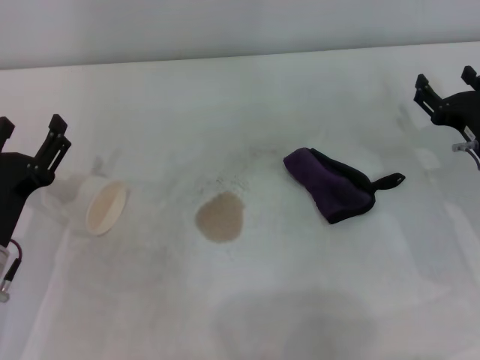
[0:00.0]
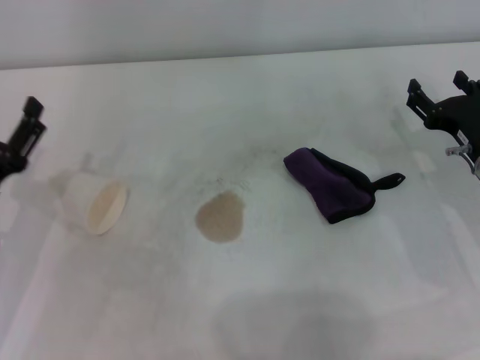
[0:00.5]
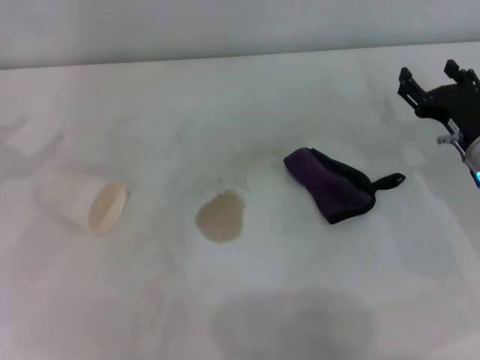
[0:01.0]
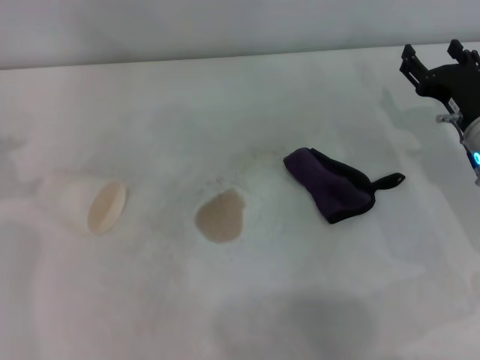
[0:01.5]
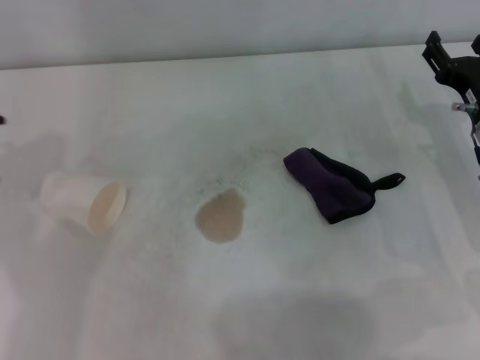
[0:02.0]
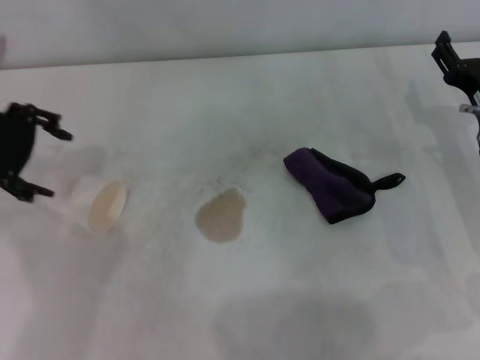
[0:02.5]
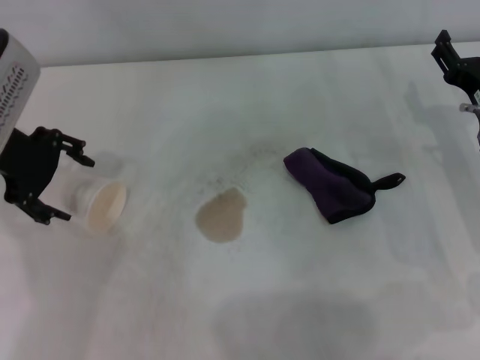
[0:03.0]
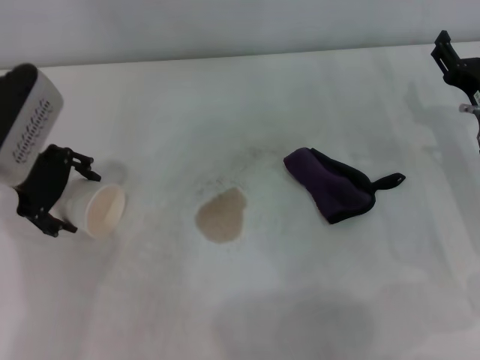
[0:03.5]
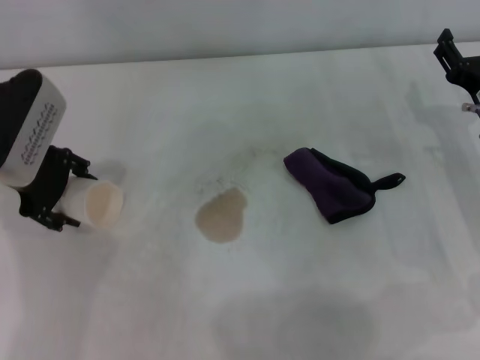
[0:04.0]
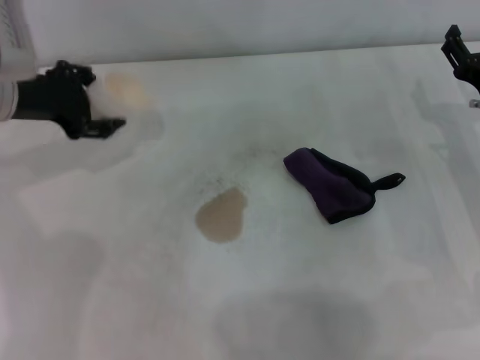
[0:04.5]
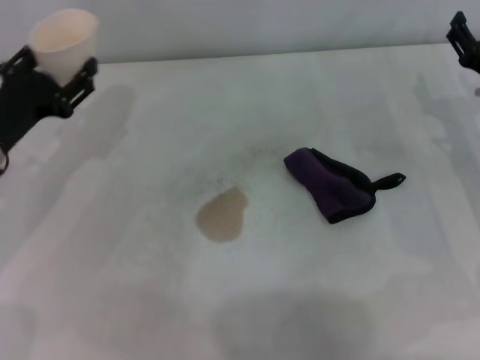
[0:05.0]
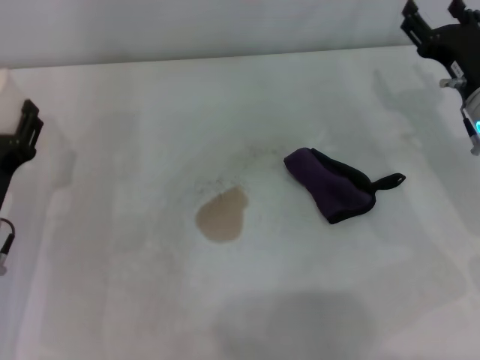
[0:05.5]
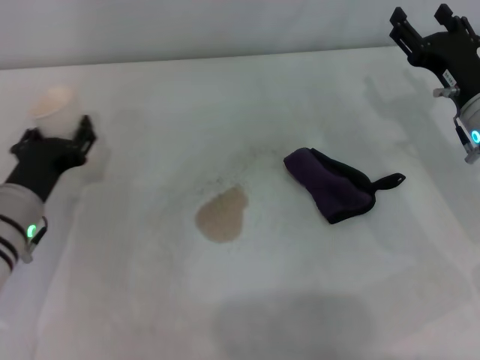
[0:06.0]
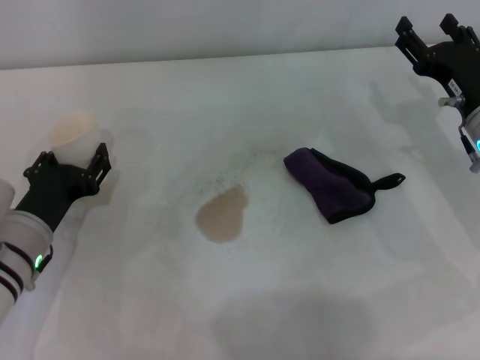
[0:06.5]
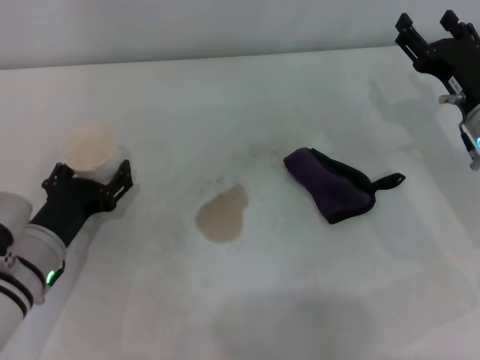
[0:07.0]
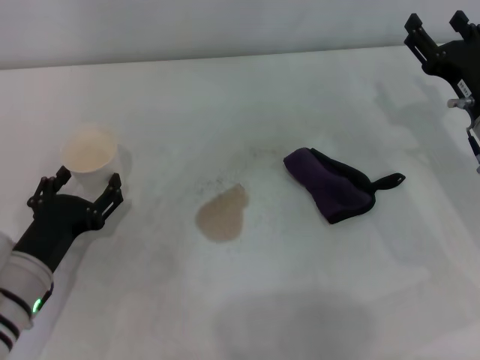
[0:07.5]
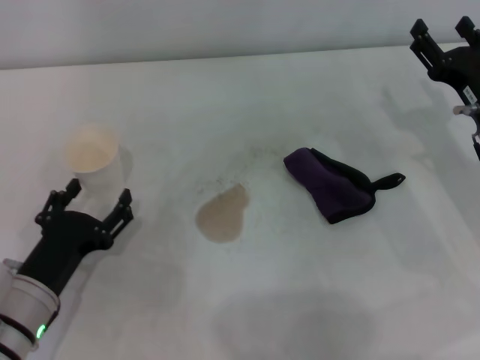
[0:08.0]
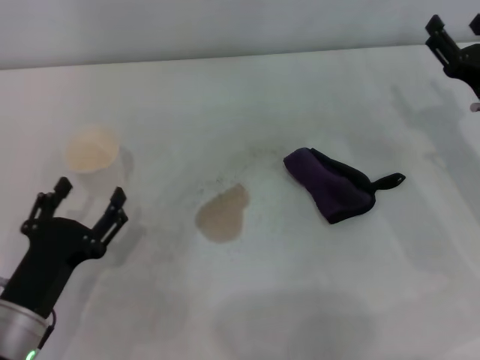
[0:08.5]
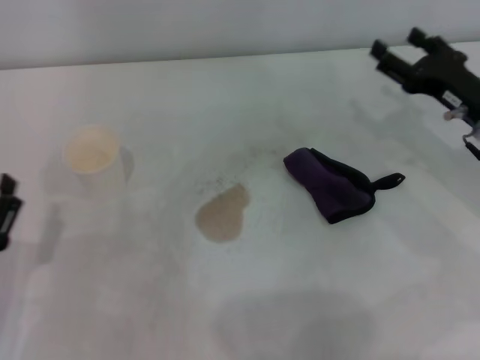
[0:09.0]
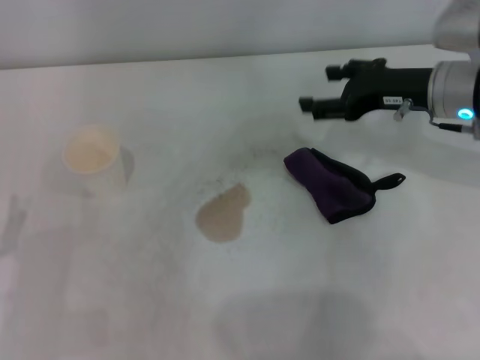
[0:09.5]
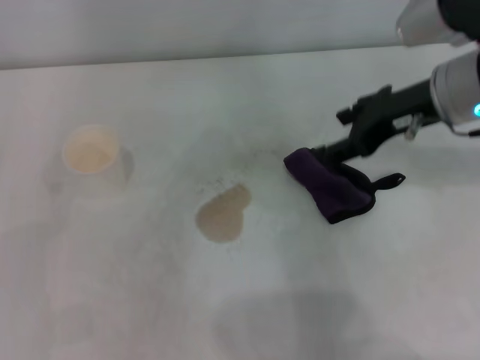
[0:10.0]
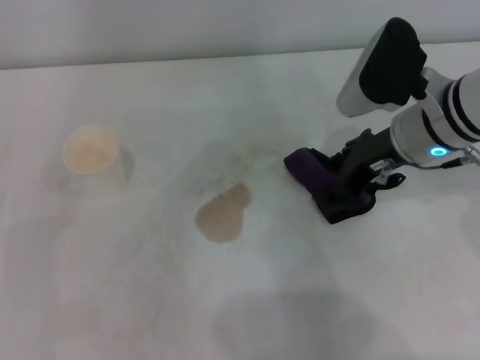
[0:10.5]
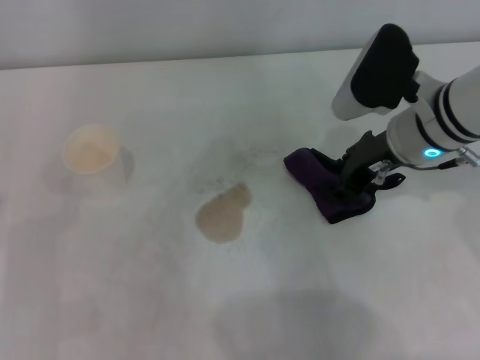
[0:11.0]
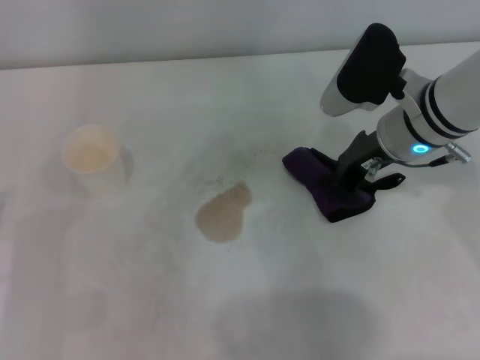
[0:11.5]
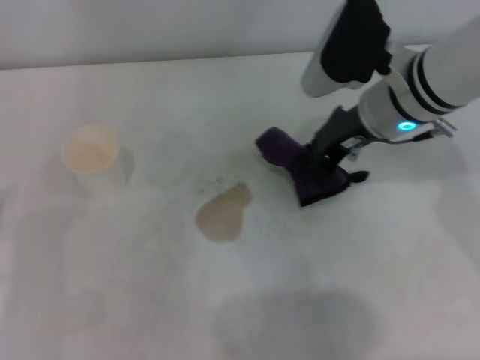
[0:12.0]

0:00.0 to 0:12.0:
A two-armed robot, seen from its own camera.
Step, 0:00.0 to 0:03.5: Grasp the paper cup with the left gripper.
Step, 0:04.0 to 0:07.0: Stand the paper cup upright with the left gripper.
Step, 0:07.5 to 0:11.0: Grasp the rag with the right gripper.
0:00.0 to 0:02.0: The left gripper goes approximately 25 cm upward and forward.
0:02.0 to 0:04.0: The left gripper shifts about 10 cm downward and to the right.
0:04.0 to 0:06.0: The left gripper heads downward and backward, covering roughly 15 cm, and closes up.
0:06.0 to 0:08.0: The left gripper moves backward, about 10 cm, and opens.
0:08.0 to 0:10.0: The right gripper goes roughly 15 cm upward and to the left, while the left gripper travels to the left by roughly 10 cm.
0:10.0 to 0:12.0: The right gripper is displaced to the left by roughly 5 cm, and closes up.

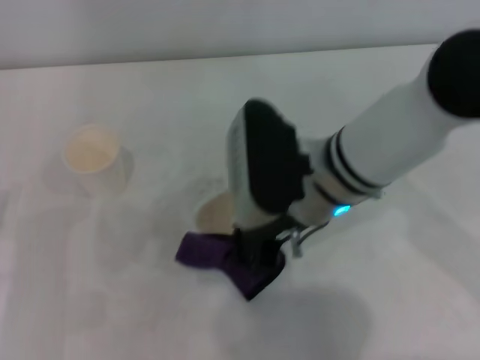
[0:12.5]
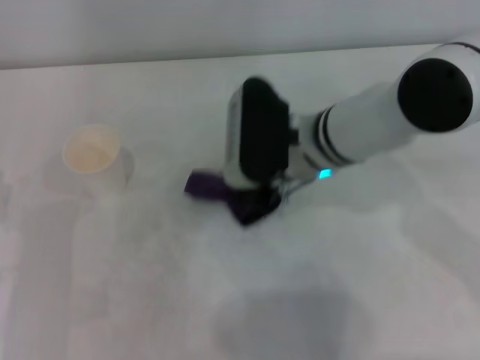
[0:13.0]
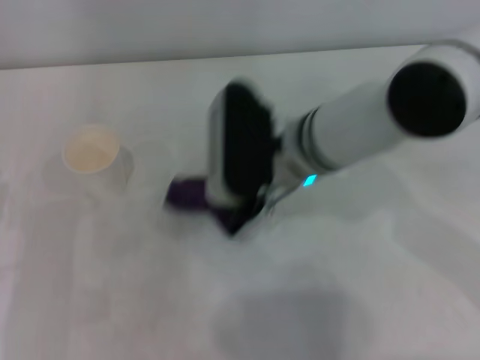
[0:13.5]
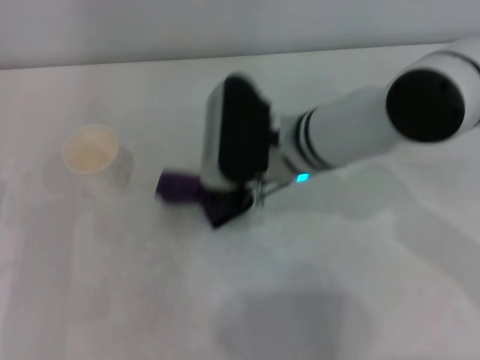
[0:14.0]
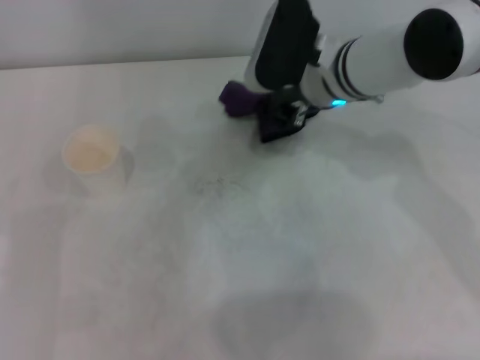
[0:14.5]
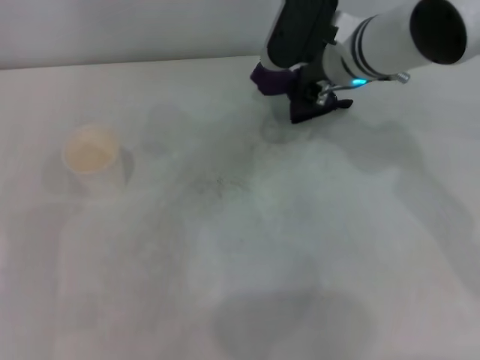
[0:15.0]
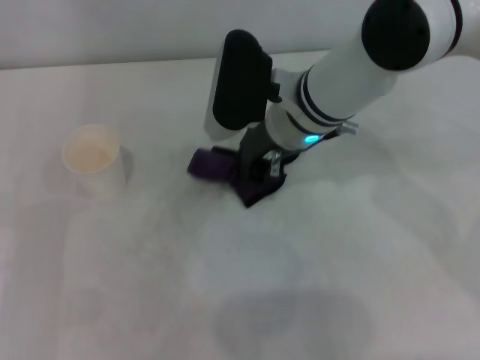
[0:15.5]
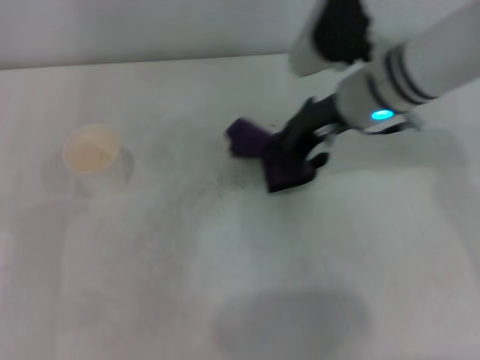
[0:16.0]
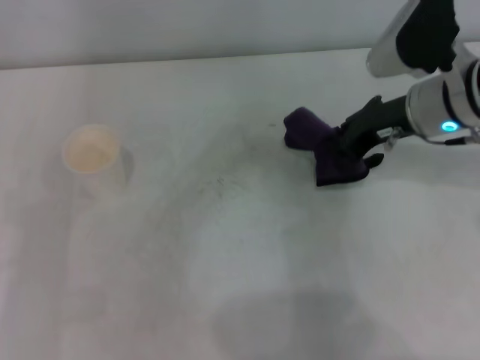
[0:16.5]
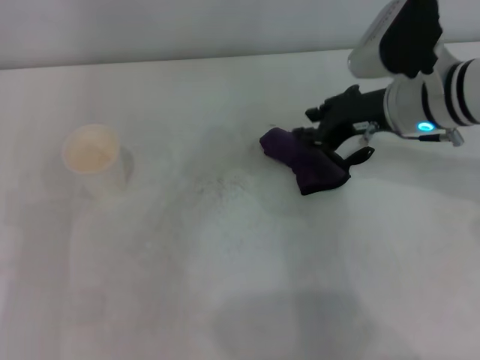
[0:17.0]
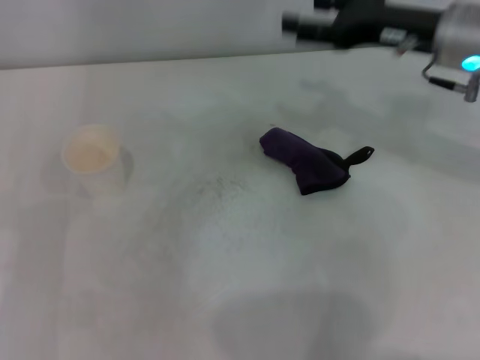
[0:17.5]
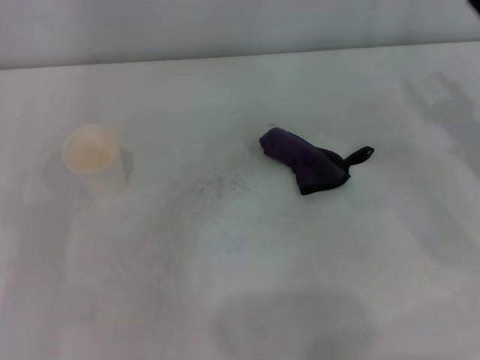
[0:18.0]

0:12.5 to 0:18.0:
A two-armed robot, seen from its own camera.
Step, 0:12.5 to 0:14.0: Wipe the stains off the table with the right gripper.
Step, 0:14.5 to 0:16.5: Place the rag on the table with the right gripper.
0:12.5 to 0:14.5: The right gripper is displaced forward by about 10 cm.
0:14.5 to 0:16.0: The right gripper ends up roughly 5 cm from where it was.
0:16.0 to 0:18.0: The right gripper is displaced to the right and backward by about 20 cm, and opens.

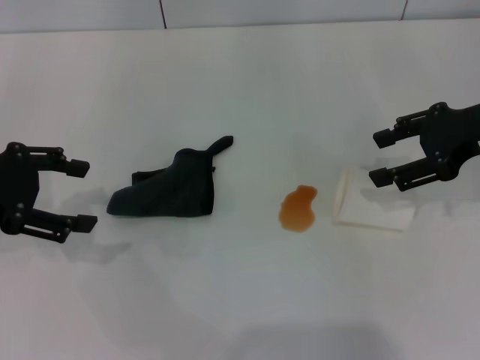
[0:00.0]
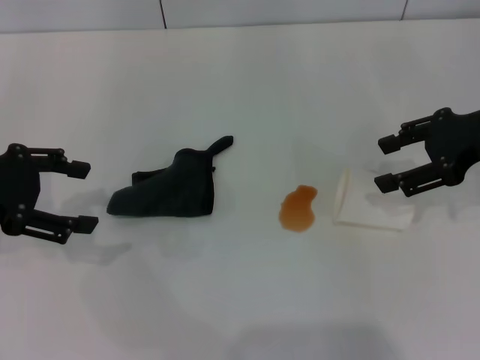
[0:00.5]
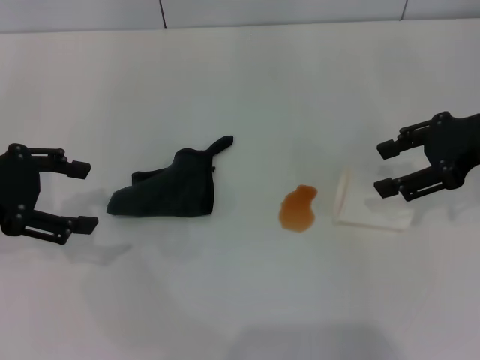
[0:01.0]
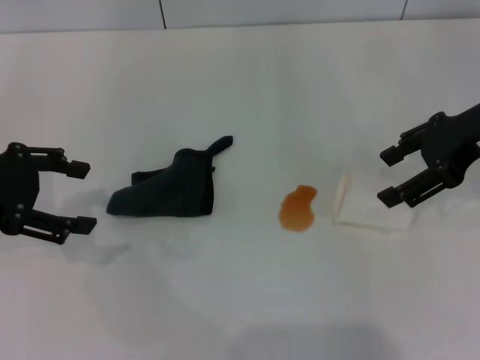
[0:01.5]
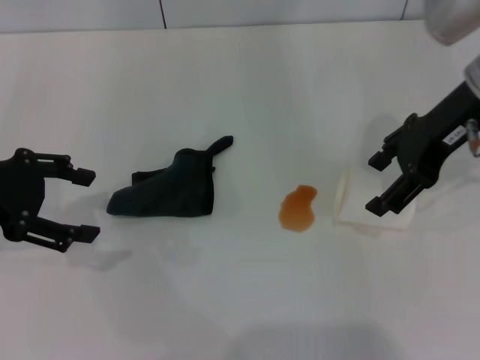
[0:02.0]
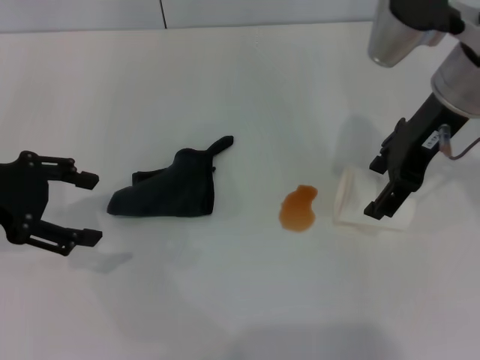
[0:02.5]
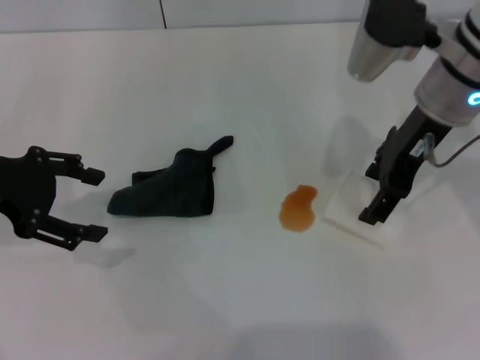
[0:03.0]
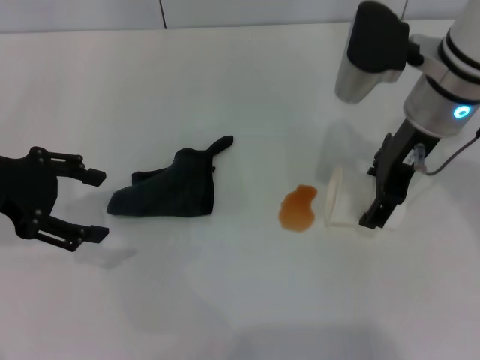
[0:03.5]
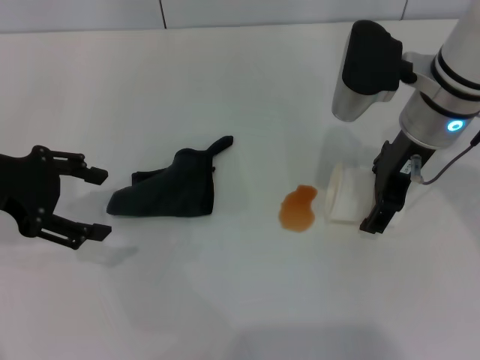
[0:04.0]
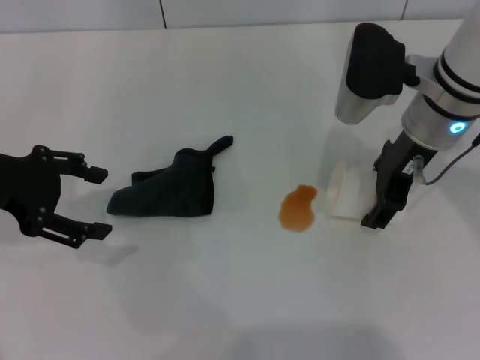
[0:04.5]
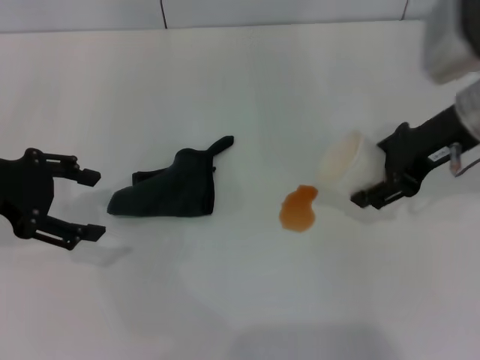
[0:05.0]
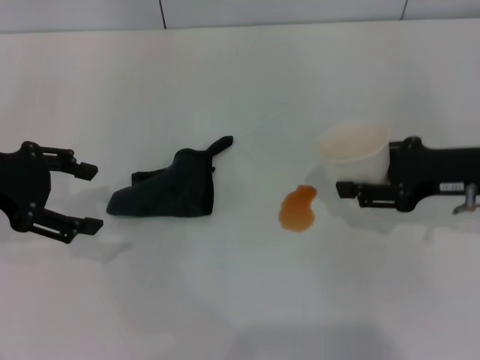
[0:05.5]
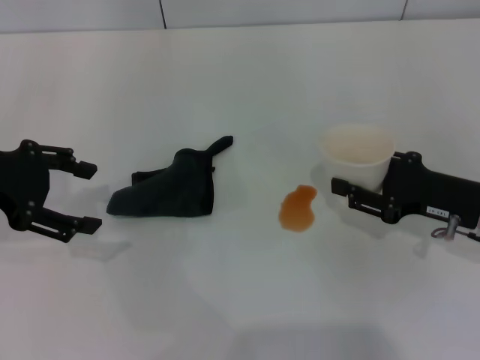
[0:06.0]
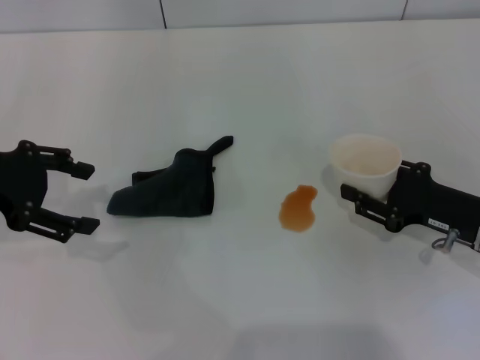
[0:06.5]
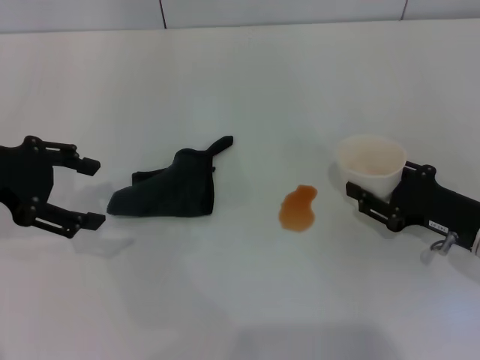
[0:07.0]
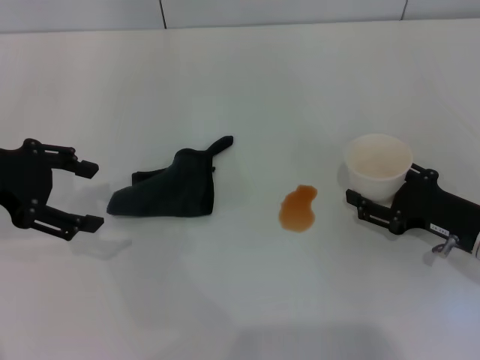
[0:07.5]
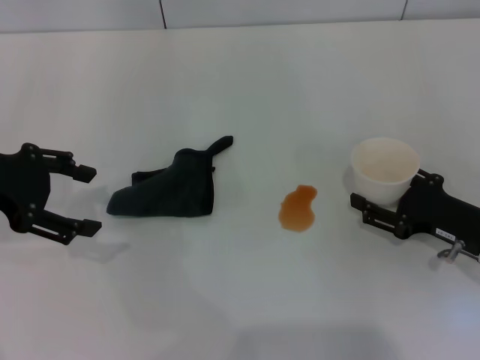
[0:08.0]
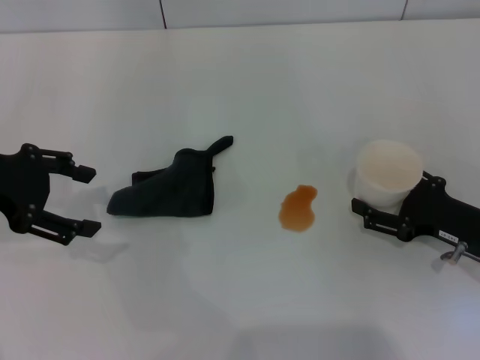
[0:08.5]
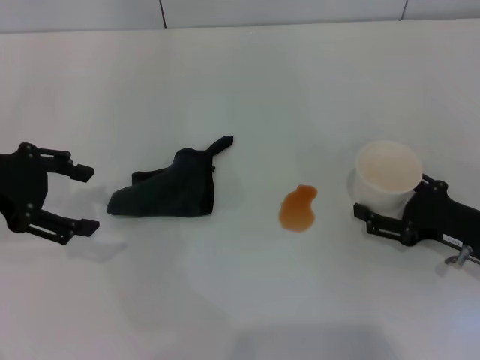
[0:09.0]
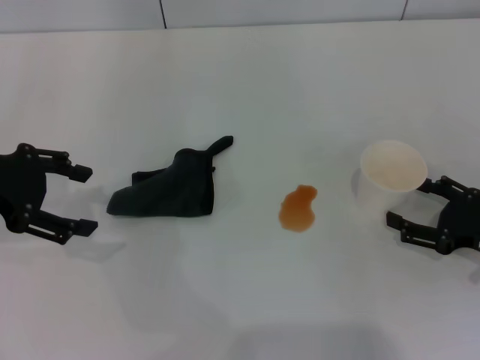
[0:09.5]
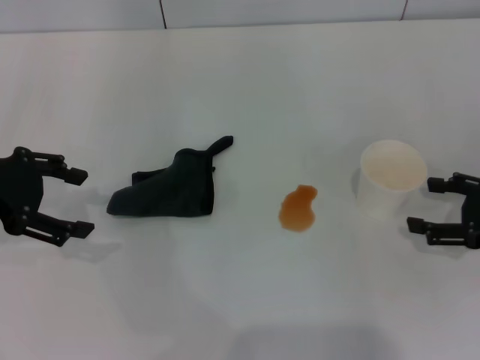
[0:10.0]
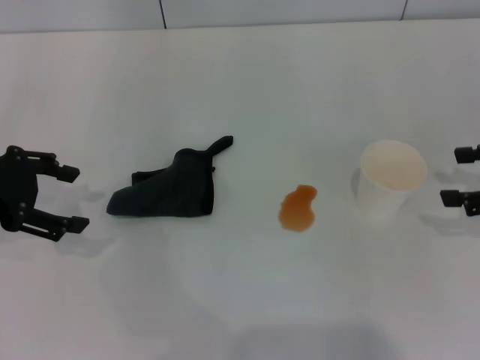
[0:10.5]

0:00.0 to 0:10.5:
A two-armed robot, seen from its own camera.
Step, 0:00.0 to 0:04.0: Grasp the paper cup with the right gripper.
Step, 0:04.5 to 0:09.5: Stand the paper cup upright with the right gripper.
0:00.0 to 0:02.0: The right gripper goes roughly 5 cm to the left, and opens its fingers.
0:02.0 to 0:04.0: The right gripper moves to the left and downward, about 10 cm.
0:04.0 to 0:06.5: The right gripper goes approximately 20 cm downward, to the right and backward, and closes.
0:06.5 to 0:08.5: The right gripper opens its fingers.
0:08.5 to 0:10.5: The right gripper is displaced upward and to the right by approximately 15 cm, and opens up.
